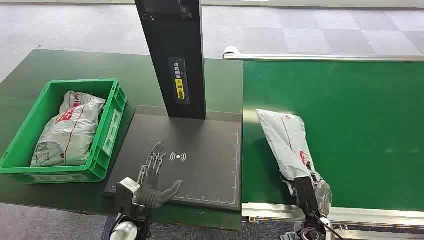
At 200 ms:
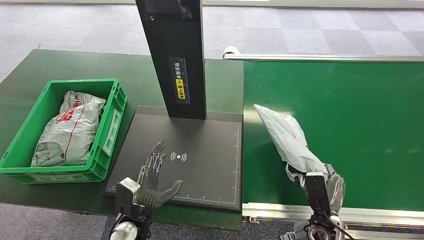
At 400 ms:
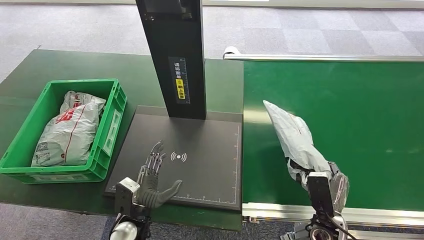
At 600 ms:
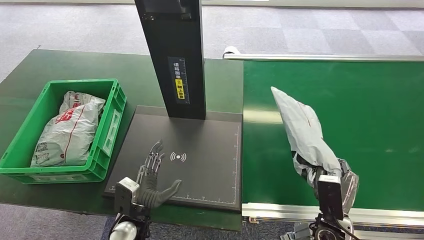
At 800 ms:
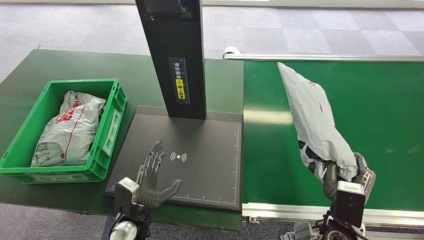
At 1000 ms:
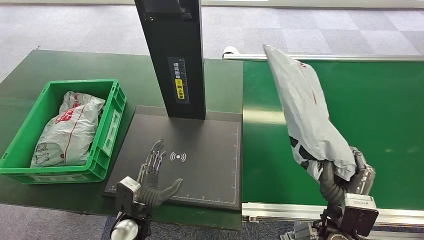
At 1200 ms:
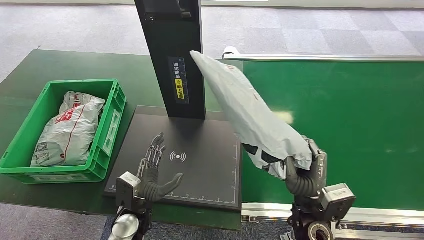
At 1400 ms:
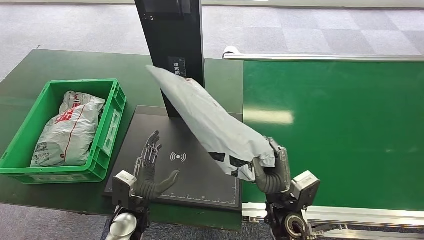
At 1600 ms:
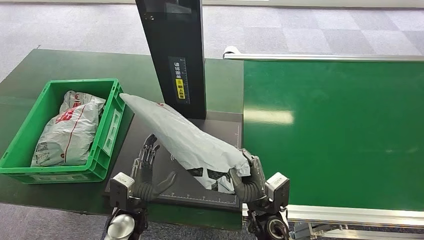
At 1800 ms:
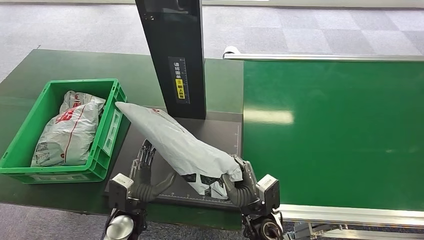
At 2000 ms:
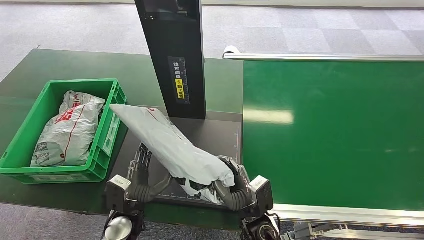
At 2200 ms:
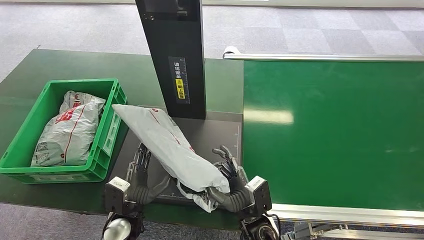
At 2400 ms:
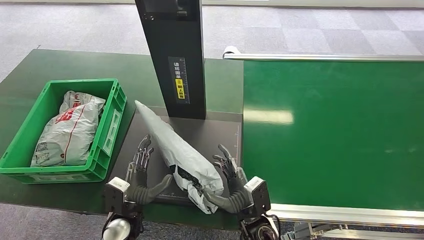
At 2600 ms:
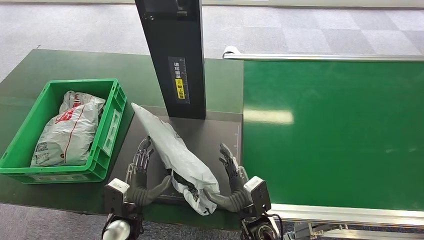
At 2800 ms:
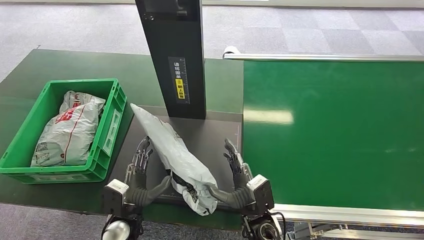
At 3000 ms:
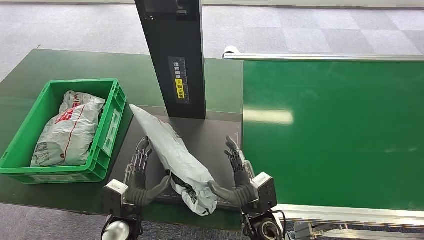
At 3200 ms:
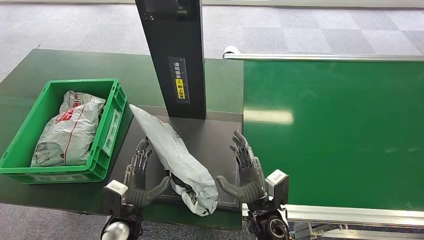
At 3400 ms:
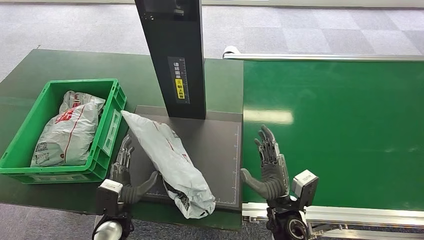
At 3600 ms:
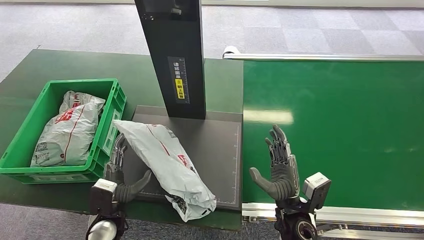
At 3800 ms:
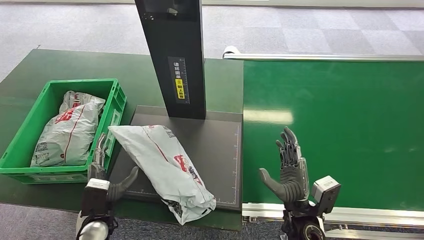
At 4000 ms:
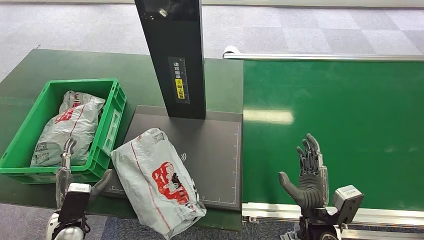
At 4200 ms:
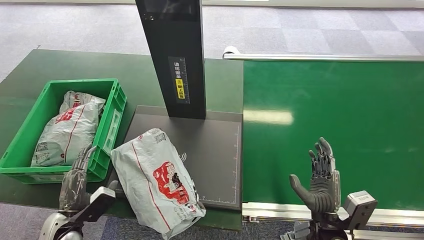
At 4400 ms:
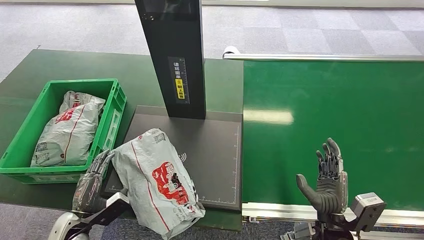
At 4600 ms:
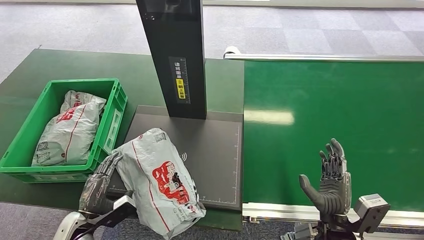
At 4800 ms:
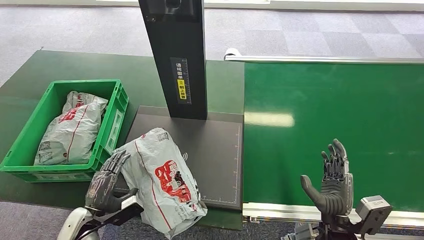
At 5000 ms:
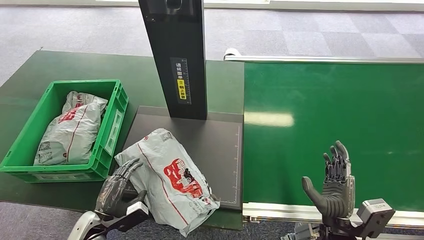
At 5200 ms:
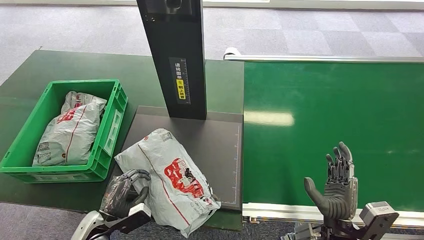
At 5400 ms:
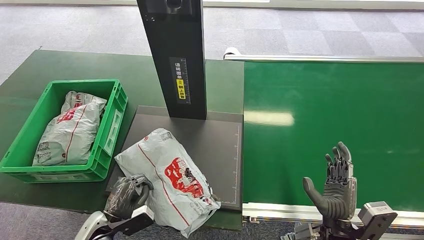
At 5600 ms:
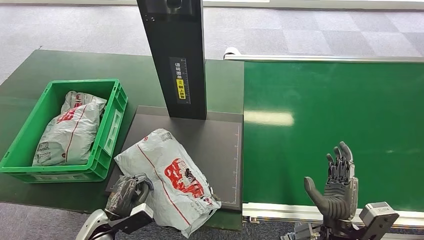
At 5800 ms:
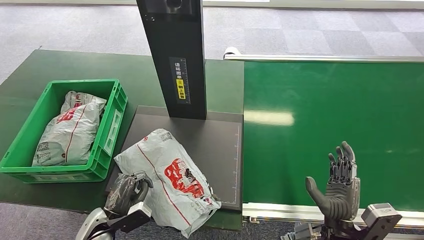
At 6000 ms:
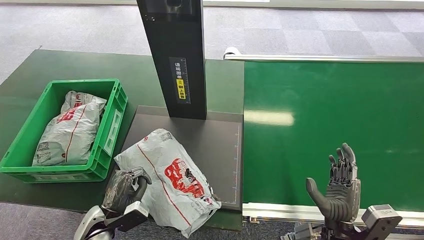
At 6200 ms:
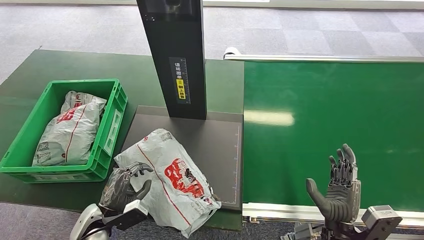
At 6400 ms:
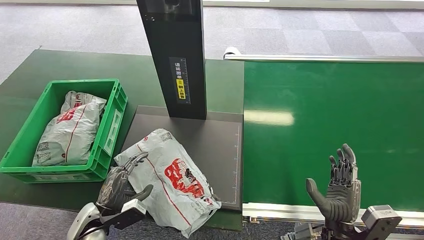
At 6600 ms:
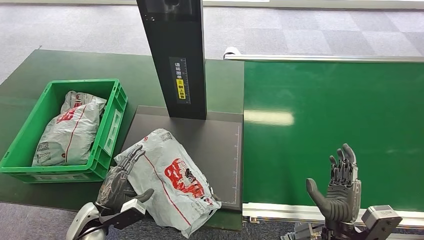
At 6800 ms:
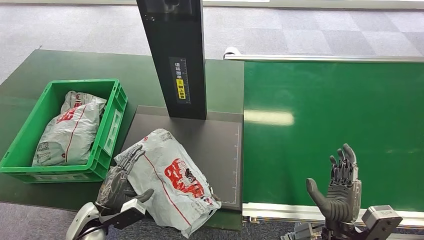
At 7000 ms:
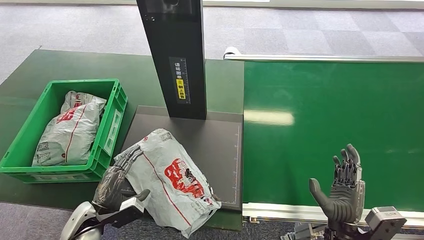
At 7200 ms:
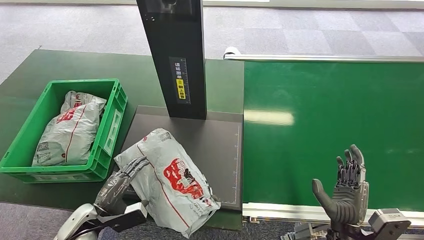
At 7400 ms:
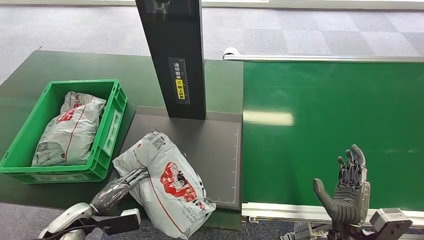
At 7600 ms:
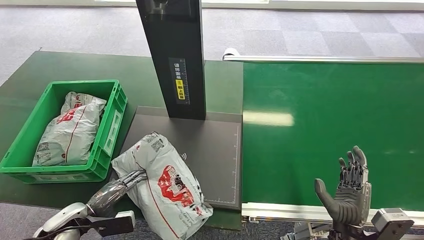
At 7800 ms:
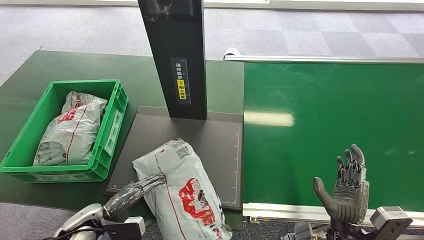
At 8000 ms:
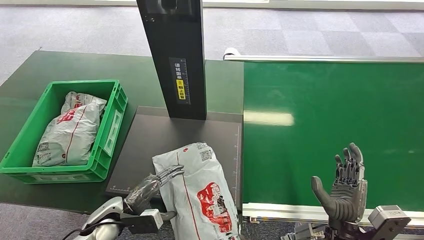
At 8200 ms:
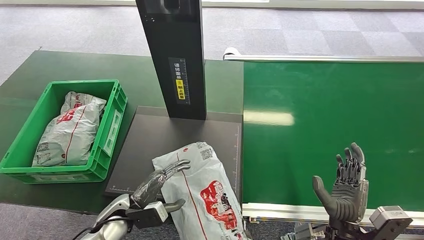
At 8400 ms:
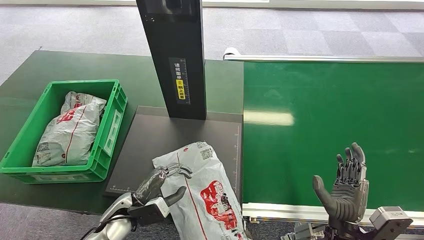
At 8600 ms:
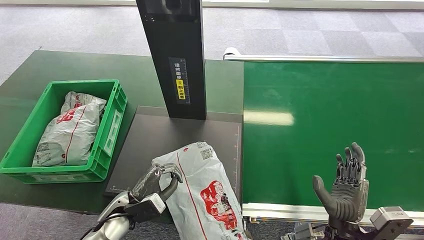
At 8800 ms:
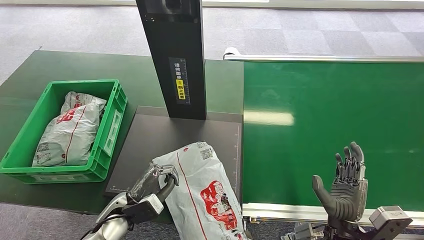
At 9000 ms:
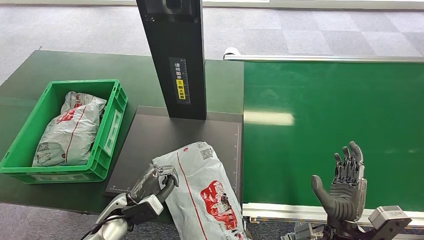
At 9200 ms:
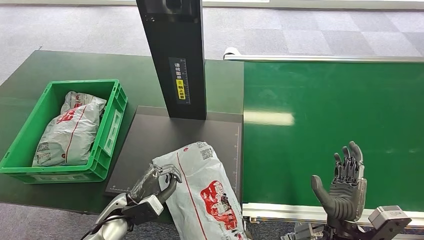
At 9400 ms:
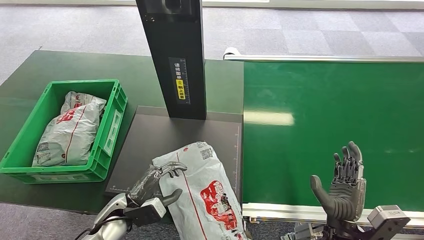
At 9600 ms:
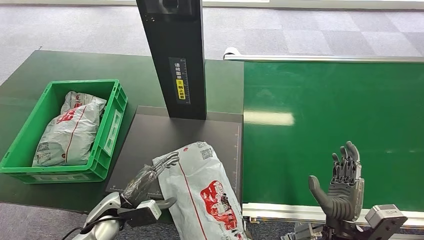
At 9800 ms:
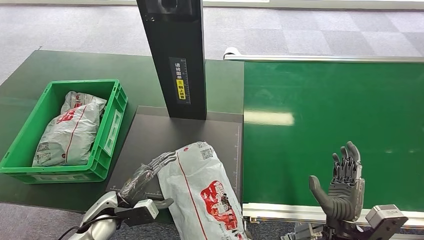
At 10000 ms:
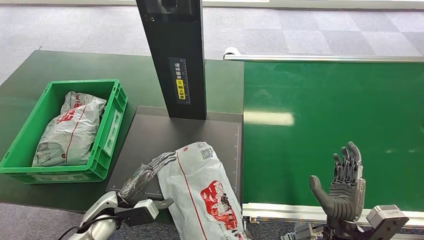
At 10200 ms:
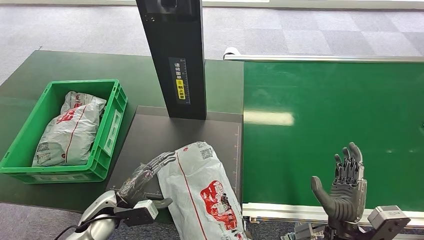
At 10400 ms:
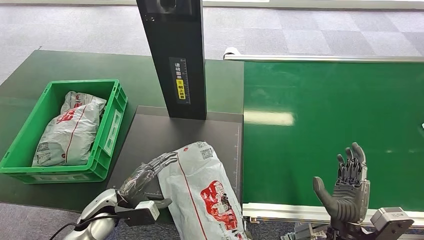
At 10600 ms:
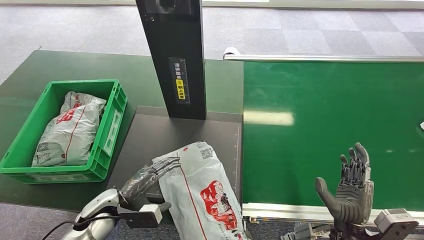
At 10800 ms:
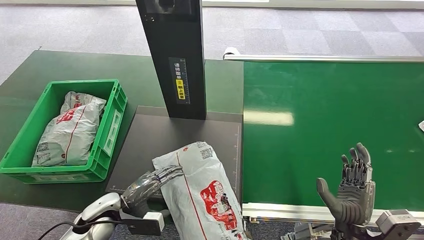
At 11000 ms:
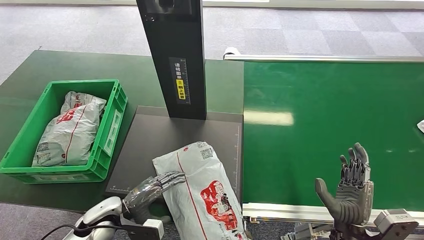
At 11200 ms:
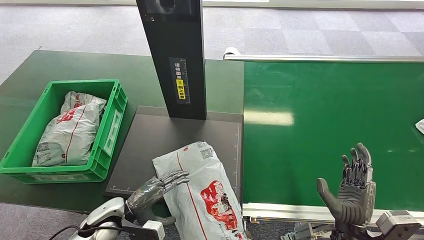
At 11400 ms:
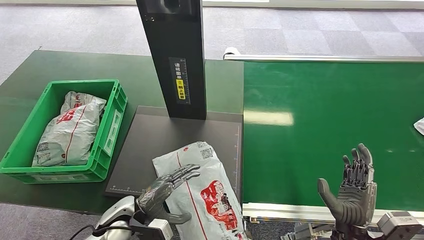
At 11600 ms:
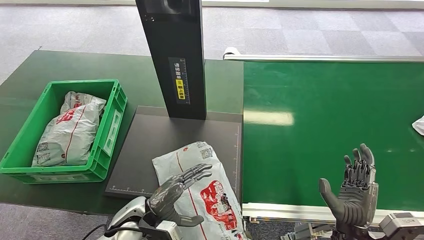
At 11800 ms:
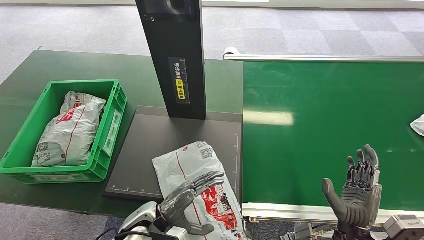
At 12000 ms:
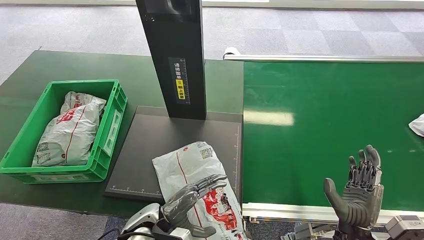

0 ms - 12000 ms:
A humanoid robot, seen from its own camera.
Task of the whole recording: Weigh the package on the weighing device and place it in the left basket.
Step, 0 ms - 1000 ms: Pick up the package from the conveyor belt.
Step, 1400 ms - 4000 ms: Place the package onto the inbound machine.
1600 ms - 3000 ms: The hands move only a little.
3000 ms - 4400 ms: The right hand shifts some 15 cm to the right. Meanwhile the left hand goes about 15 cm to the left.
4400 ms - 6000 ms: The left hand goes about 5 cm to the right.
6000 ms - 7600 ms: The left hand is displaced to the left by roughly 10 cm.
7600 ms - 9000 ms: The left hand goes some 15 cm to the right.
9000 ms - 10400 ms: The hands stay close to where they were, moving slightly.
10400 ms - 12000 ms: The left hand travels to the right by some 10 cm.

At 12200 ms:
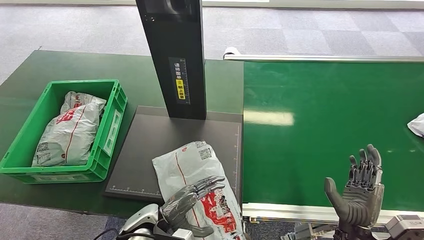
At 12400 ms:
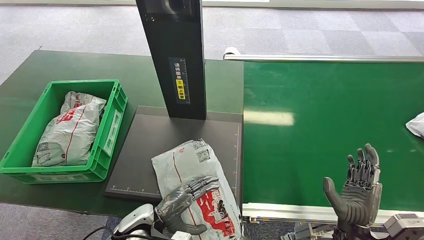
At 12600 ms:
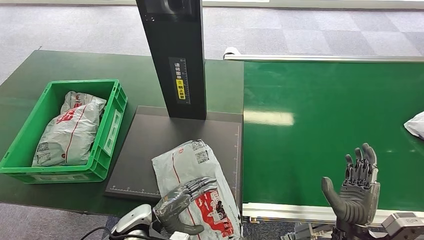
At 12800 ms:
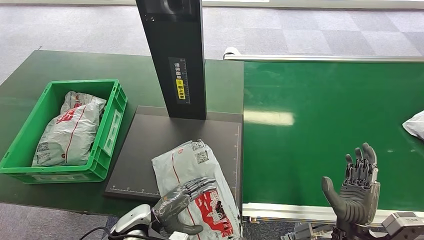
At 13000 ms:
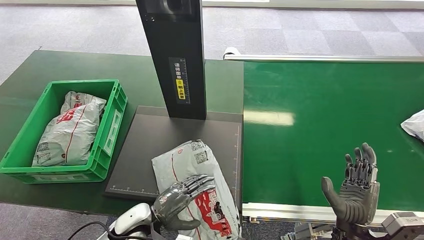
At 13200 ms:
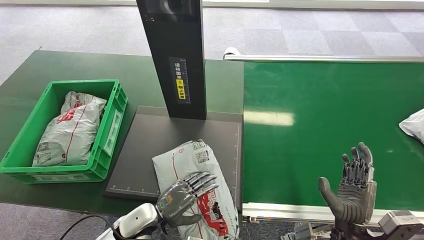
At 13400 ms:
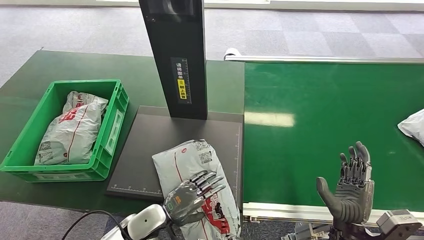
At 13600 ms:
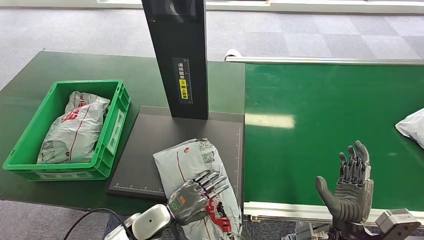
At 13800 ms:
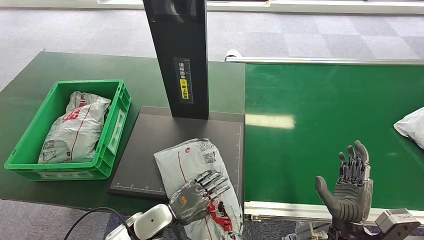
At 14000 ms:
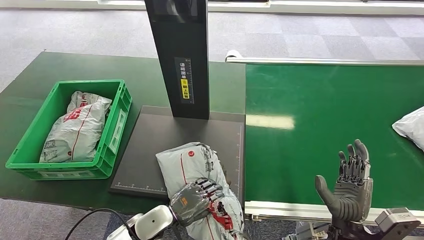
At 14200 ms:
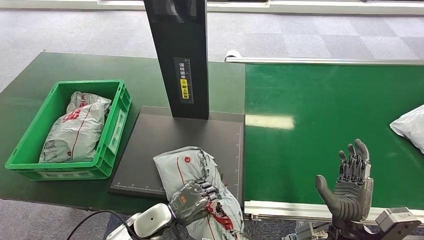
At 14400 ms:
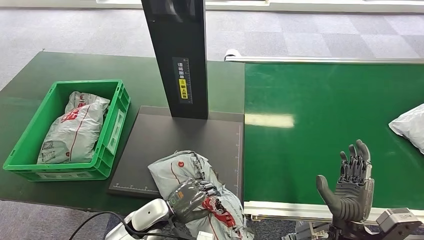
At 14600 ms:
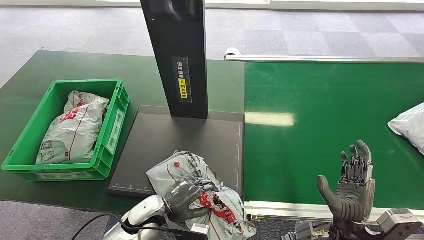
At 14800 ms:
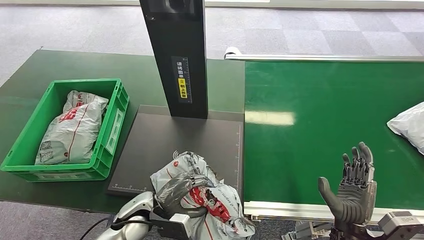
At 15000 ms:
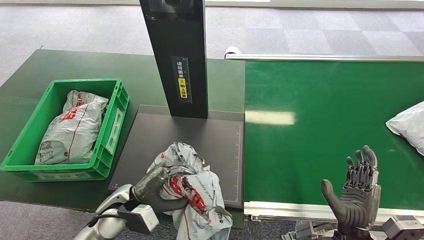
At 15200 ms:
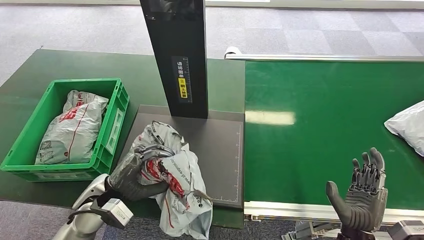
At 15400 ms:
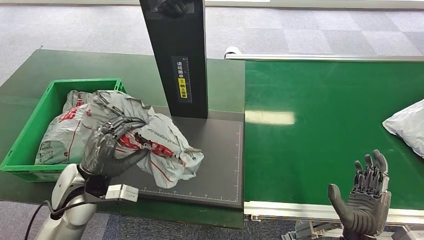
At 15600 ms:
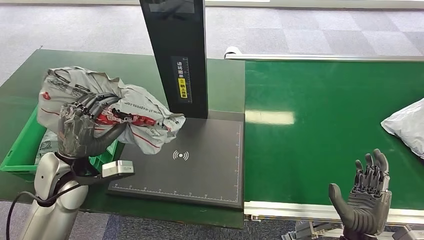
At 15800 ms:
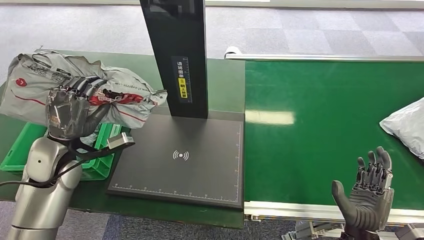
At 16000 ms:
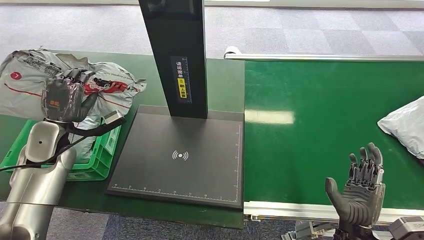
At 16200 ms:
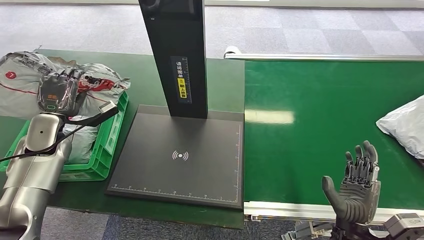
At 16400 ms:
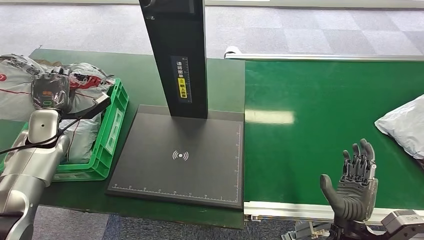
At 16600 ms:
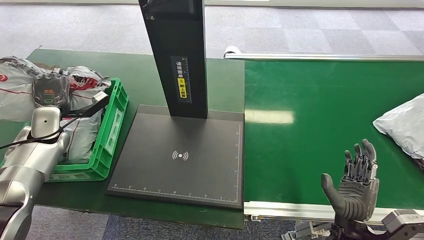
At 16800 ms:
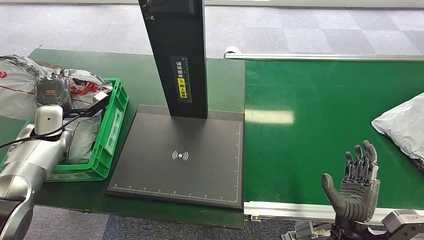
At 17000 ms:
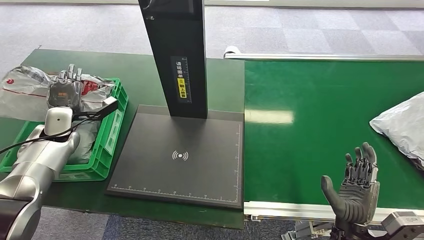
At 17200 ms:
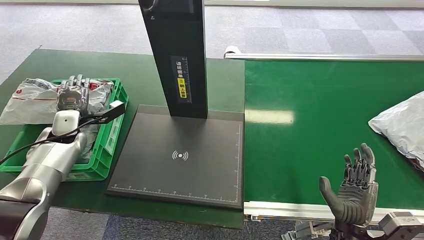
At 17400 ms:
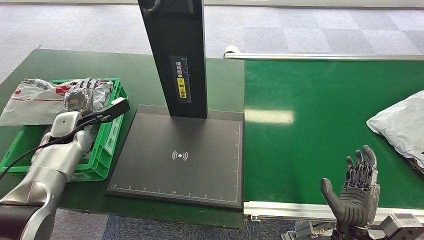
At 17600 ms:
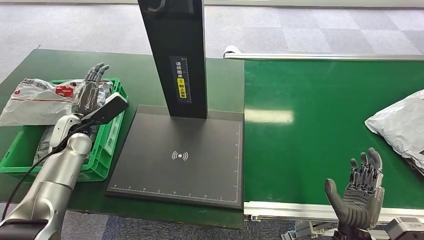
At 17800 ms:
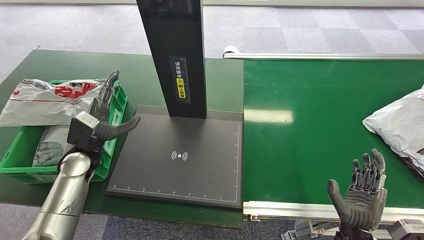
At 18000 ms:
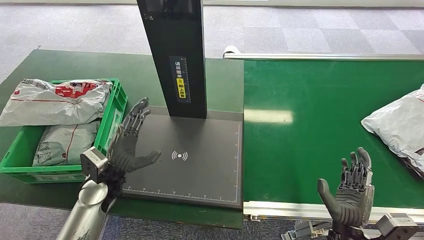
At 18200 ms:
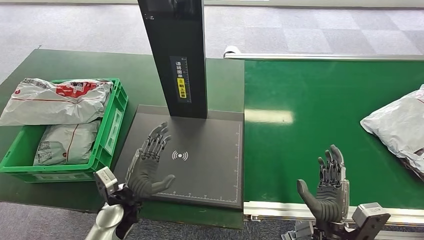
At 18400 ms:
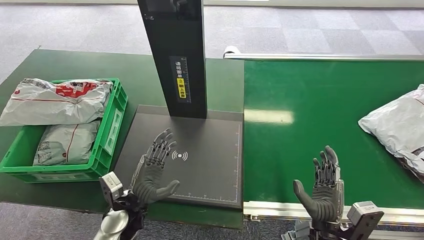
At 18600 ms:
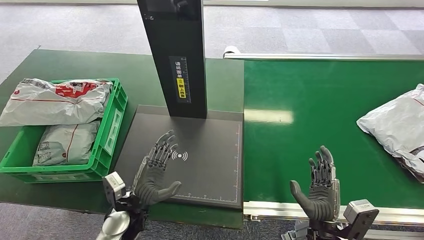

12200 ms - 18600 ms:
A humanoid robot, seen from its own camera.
Task of the whole recording: Weigh the package on the weighing device and place it in the left basket.
Step, 12200 ms - 15800 ms: Pick up the package from the inbound machine.
Step, 16000 ms - 18600 ms: Place the package into the parcel locker.
17000 ms - 18600 ms: The left hand shifts approximately 30 cm to the right, backward and downward.
